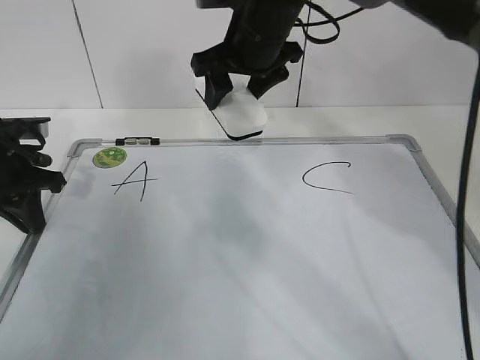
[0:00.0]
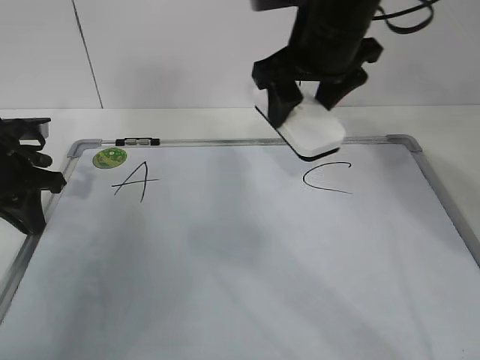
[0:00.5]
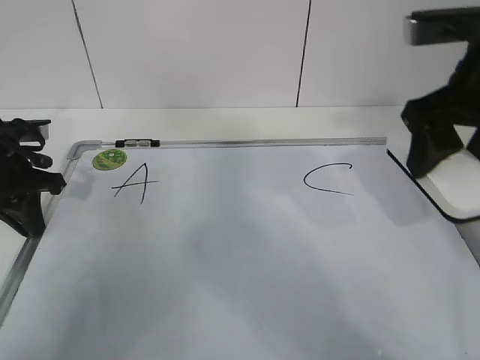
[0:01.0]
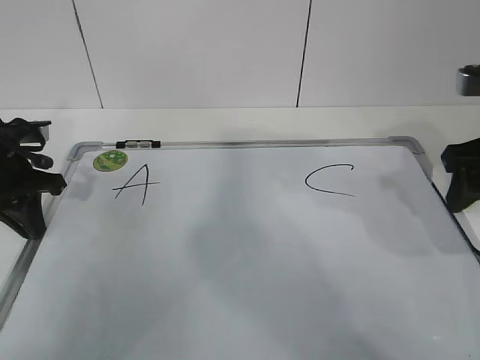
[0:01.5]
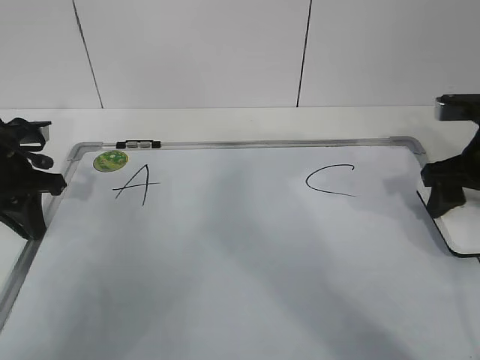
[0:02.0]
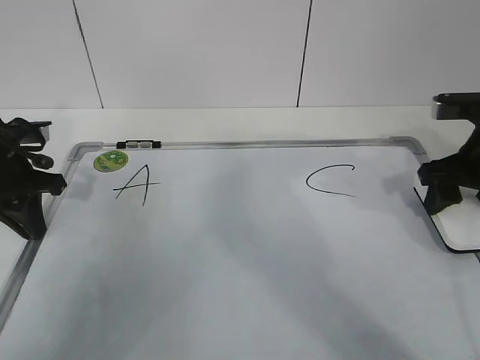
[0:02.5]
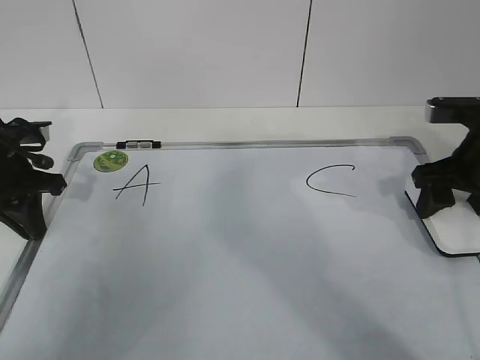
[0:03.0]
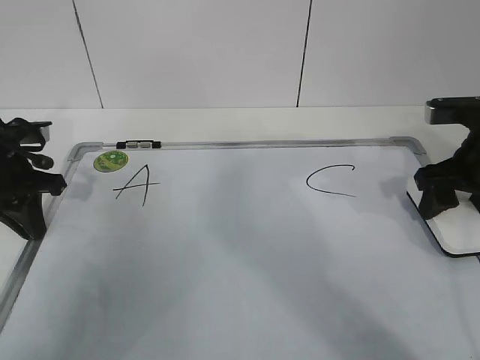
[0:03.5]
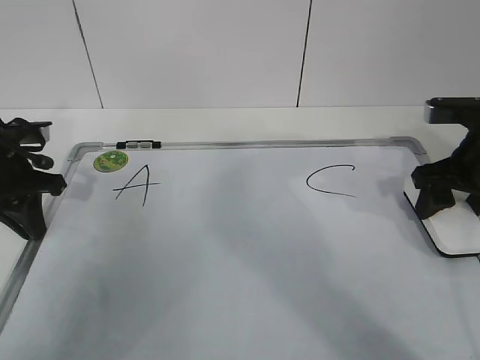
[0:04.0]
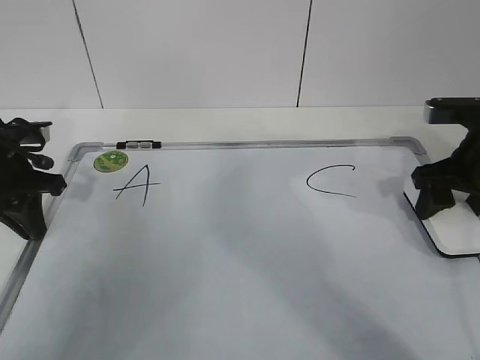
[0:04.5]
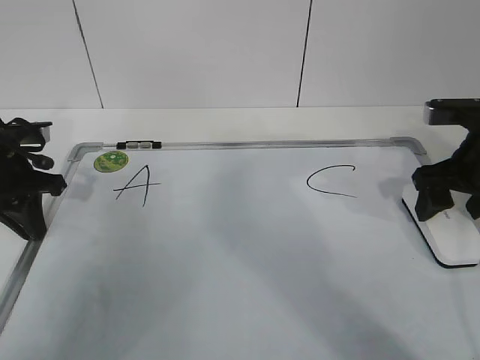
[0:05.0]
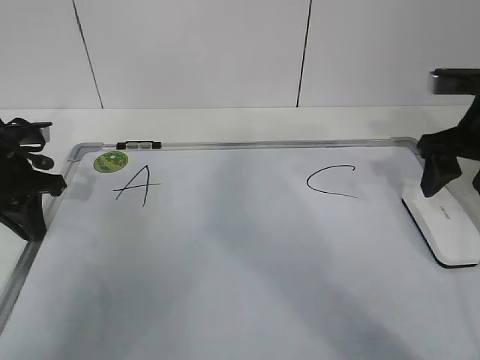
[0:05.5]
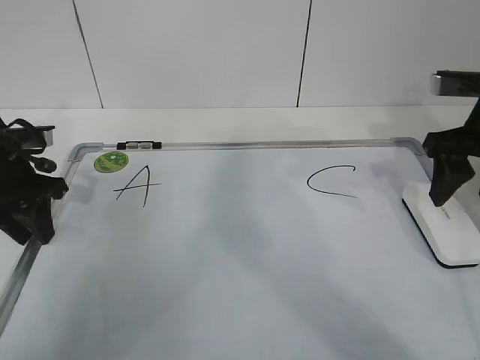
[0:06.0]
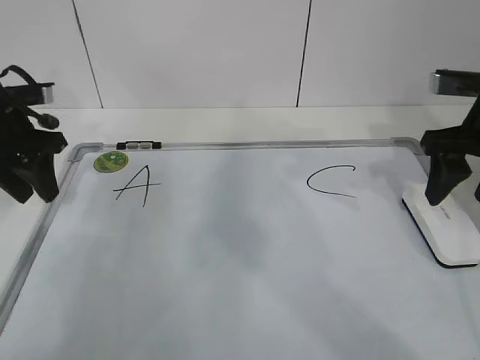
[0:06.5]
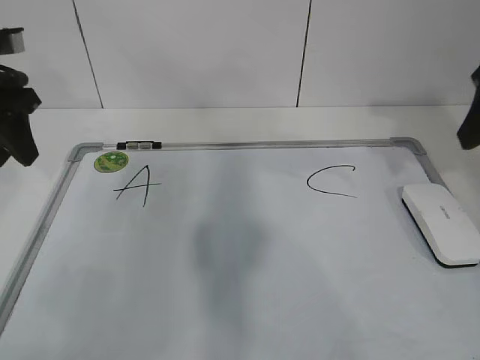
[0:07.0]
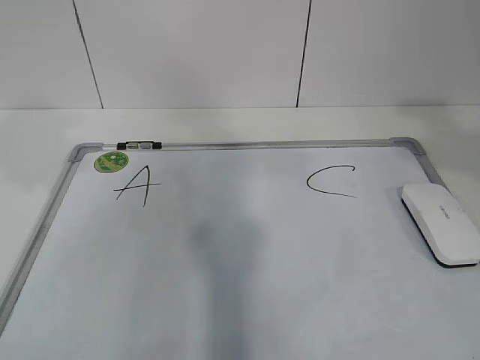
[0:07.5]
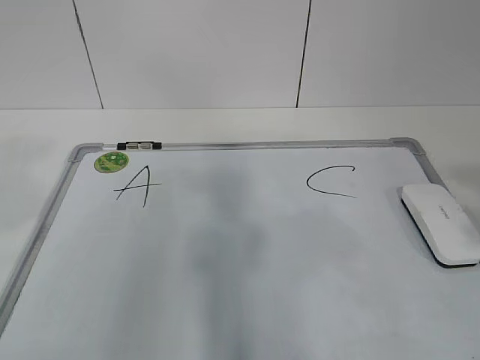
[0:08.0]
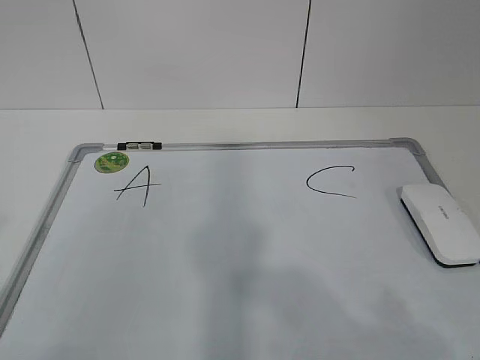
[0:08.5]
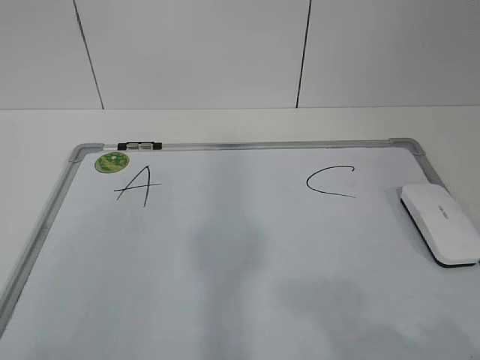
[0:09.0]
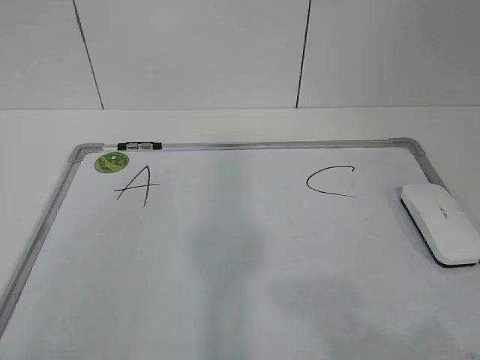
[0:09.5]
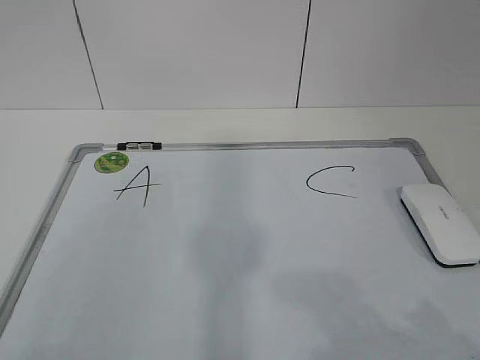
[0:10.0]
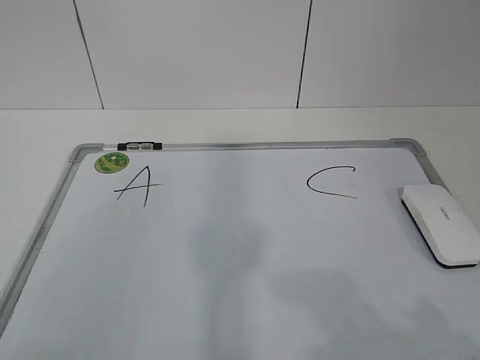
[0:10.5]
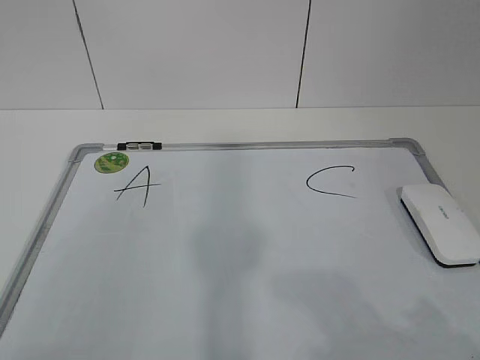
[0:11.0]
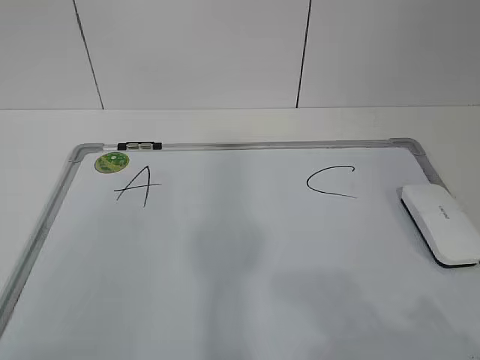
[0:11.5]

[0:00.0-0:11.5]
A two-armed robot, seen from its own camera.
Task of the whole recording: pick up the eraser on the blackboard and erase the letter "B".
0:00.0 to 0:02.0: The right gripper is displaced to the right and backward by approximately 25 cm.
0:02.0 to 0:04.0: Neither gripper changes place.
0:04.0 to 0:06.0: The right gripper opens, then closes once more. Meanwhile the left gripper opens.
0:06.0 to 0:07.5: Both grippers travel together upward and backward, about 25 cm.
0:07.5 to 0:09.5: The left gripper shifts roughly 25 cm backward; the right gripper travels backward and downward by approximately 25 cm.

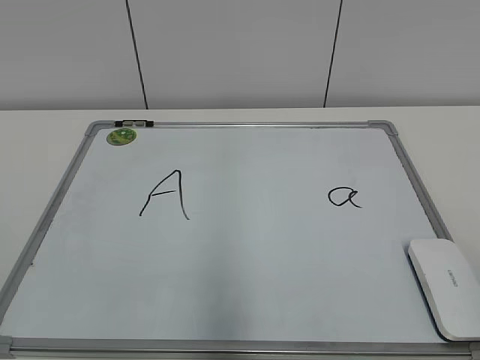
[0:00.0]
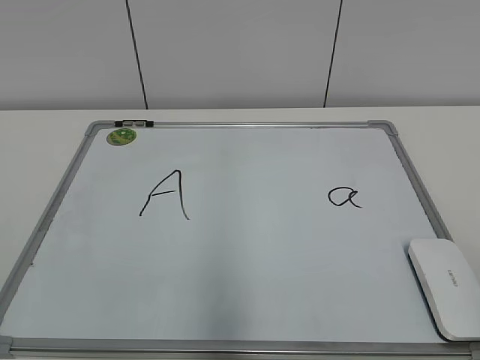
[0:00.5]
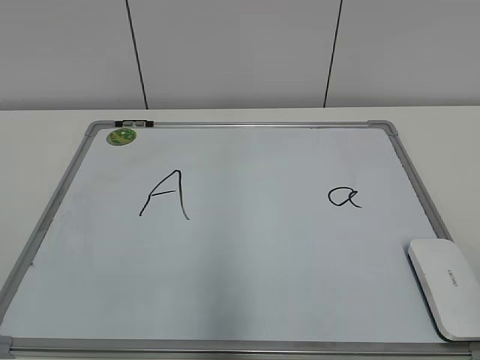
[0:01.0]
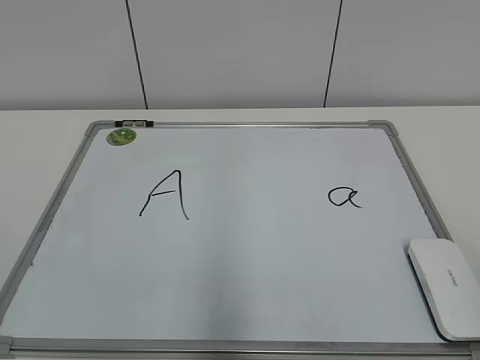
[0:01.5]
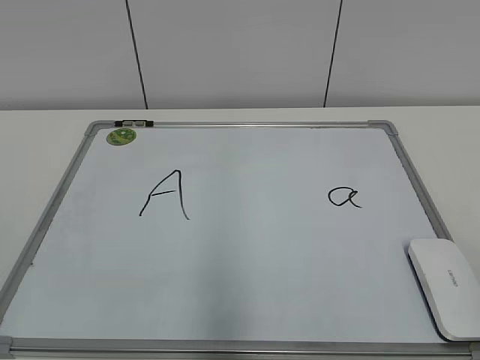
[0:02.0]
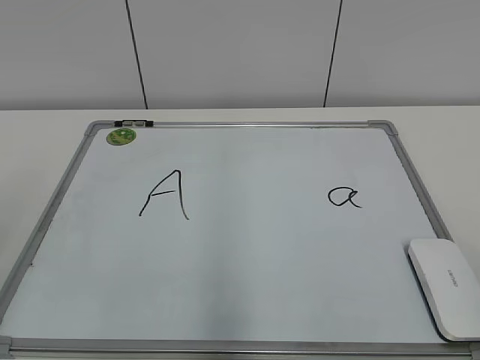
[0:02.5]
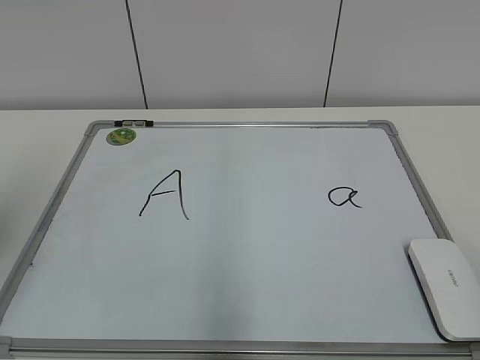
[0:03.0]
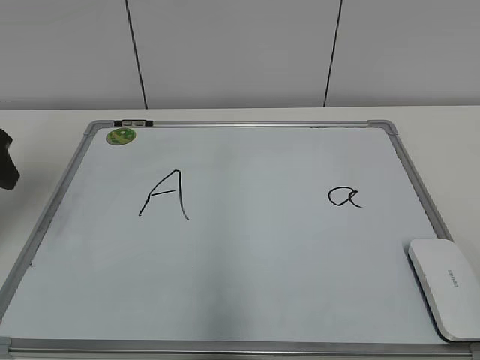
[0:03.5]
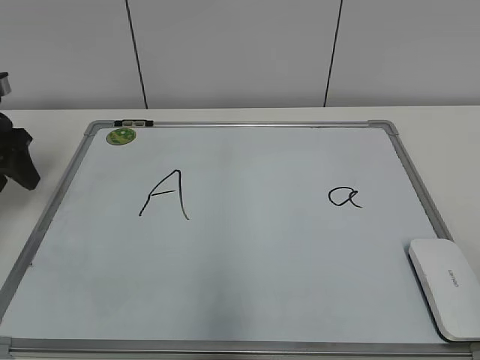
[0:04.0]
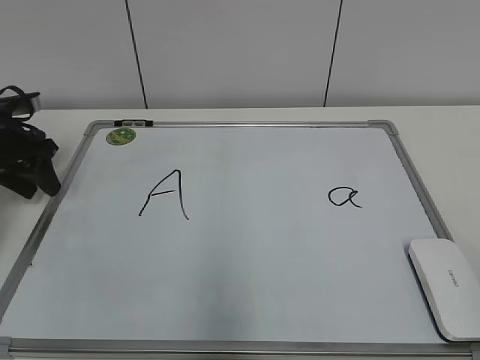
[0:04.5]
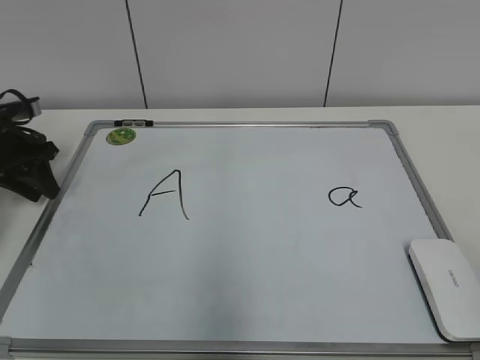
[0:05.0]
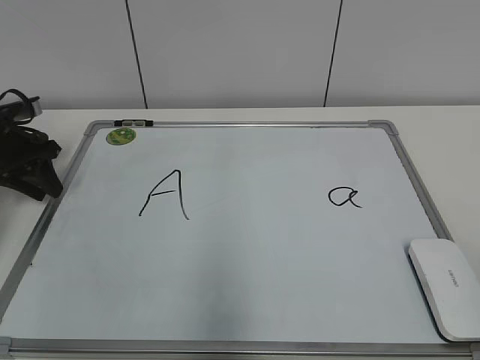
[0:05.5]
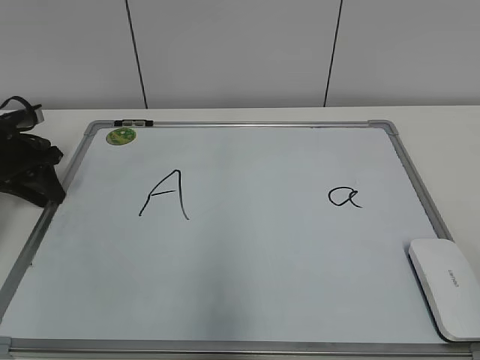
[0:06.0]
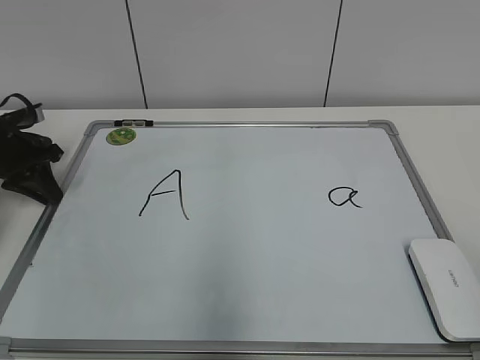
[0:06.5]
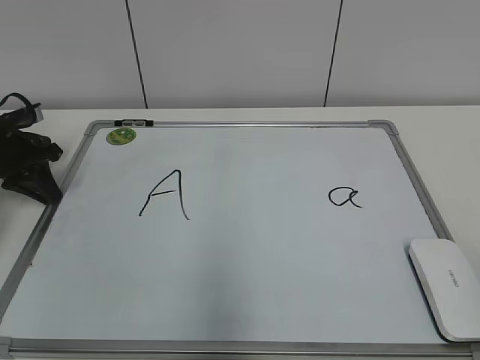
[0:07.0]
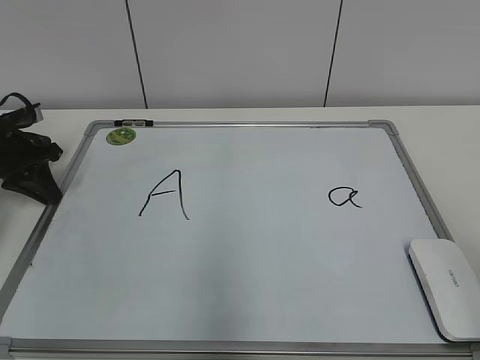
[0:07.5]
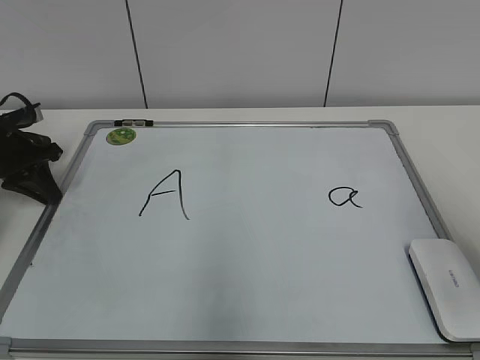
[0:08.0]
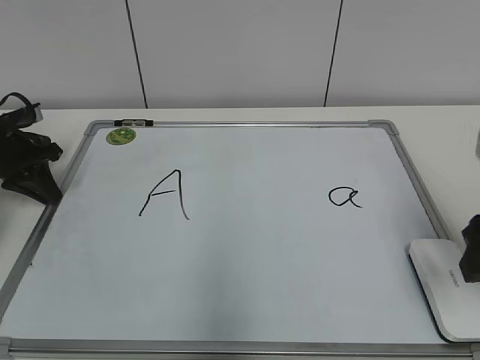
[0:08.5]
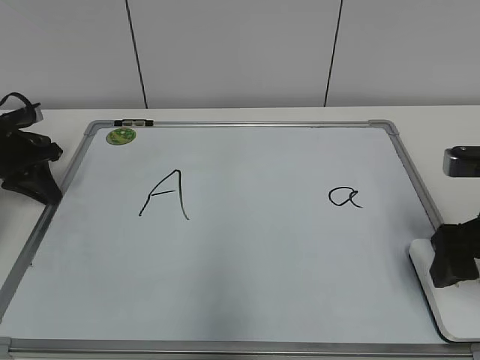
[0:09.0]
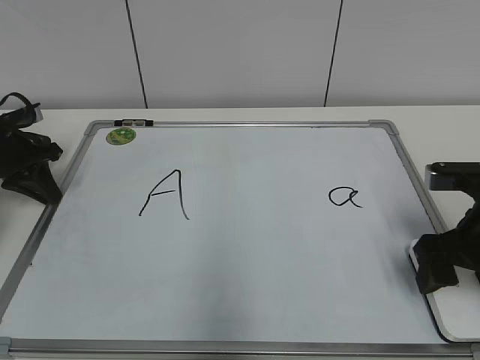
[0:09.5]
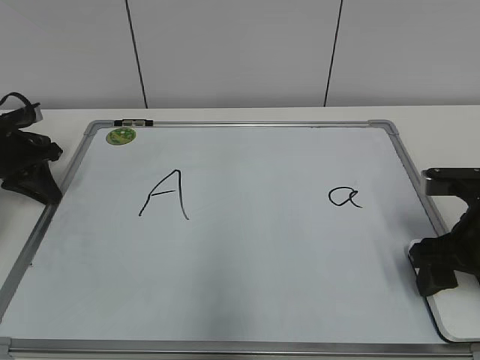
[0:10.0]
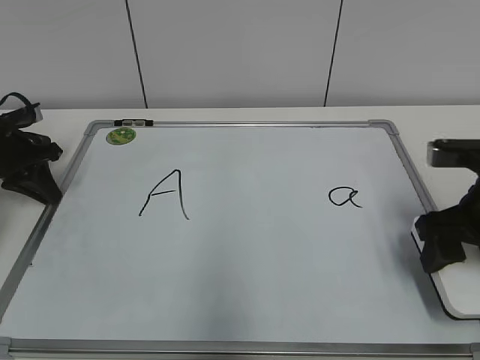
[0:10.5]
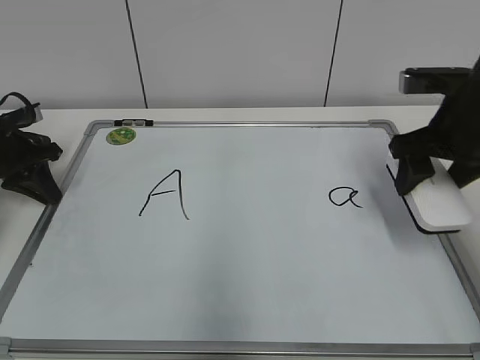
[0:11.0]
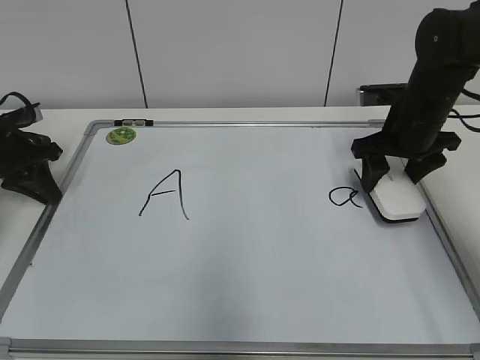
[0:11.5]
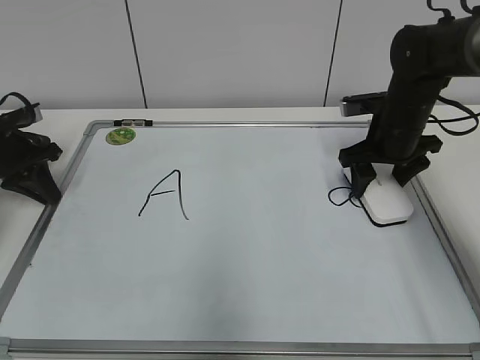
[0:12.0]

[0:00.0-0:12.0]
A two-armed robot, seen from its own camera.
Task of the whole recording: pick up the eraser on the blackboard and erase the letter "a".
Step, 0:00.0 to 0:06.0: Hold the drawing board steady with your left hand.
Step, 0:06.5 to 0:10.0: Grab the eraser with your right hand.
0:02.0 to 0:04.0: The left gripper shifts roughly 40 cm forward.
0:04.0 to 0:06.0: The left gripper travels downward and forward by approximately 10 cm, and closes up.
0:06.0 to 0:08.0: The left gripper closes. The right gripper travels forward by some 15 cm.
0:08.0 to 0:10.0: The right gripper goes approximately 15 cm downward and forward, and closes its fingers.
0:10.0 to 0:12.0: The right gripper is displaced forward by approximately 15 cm.

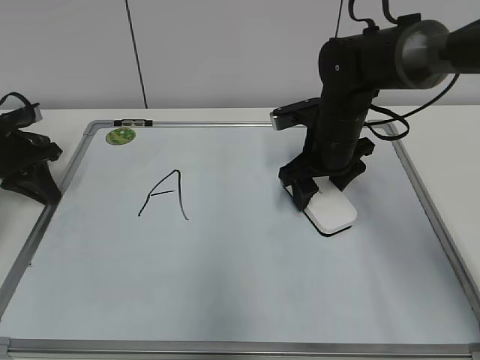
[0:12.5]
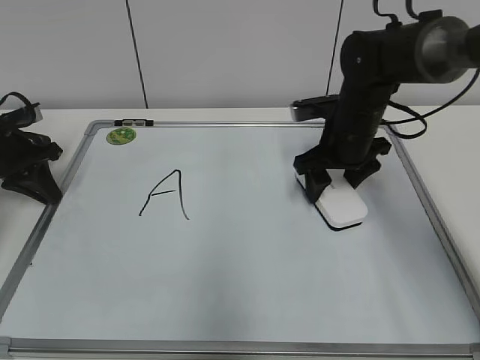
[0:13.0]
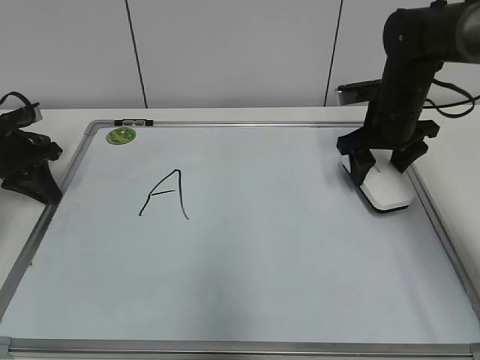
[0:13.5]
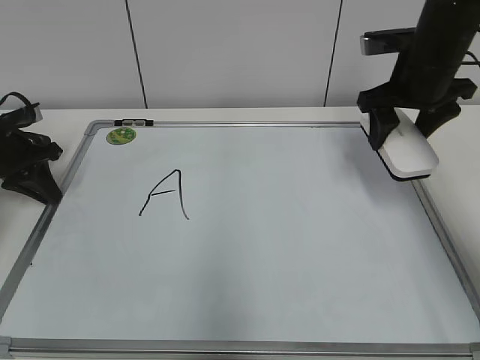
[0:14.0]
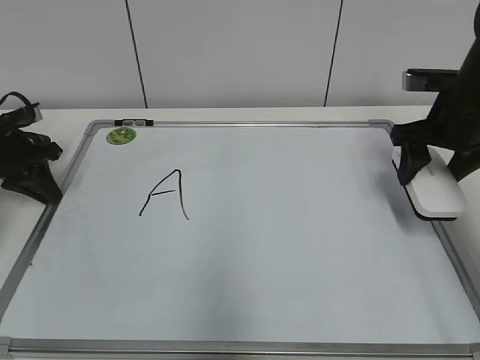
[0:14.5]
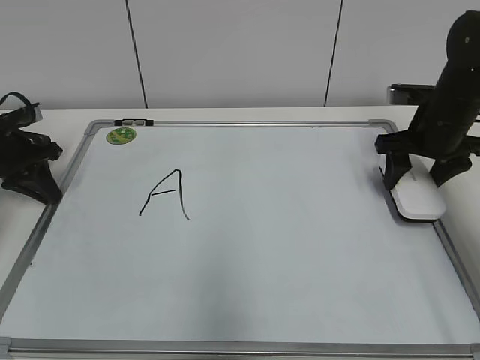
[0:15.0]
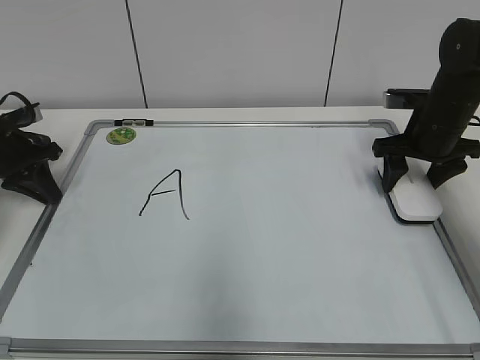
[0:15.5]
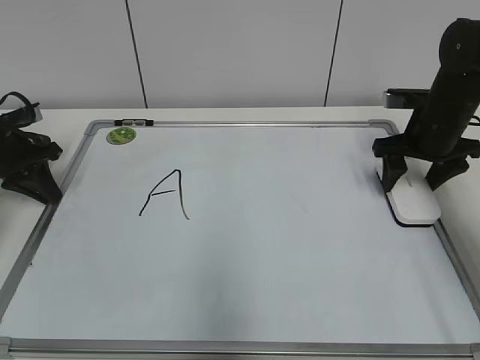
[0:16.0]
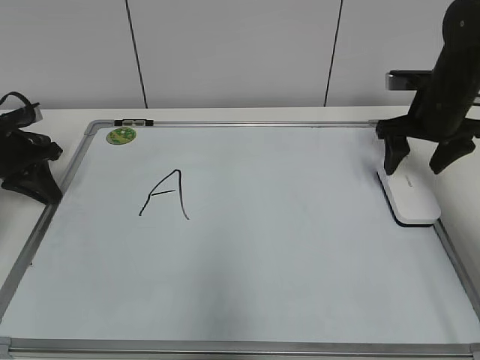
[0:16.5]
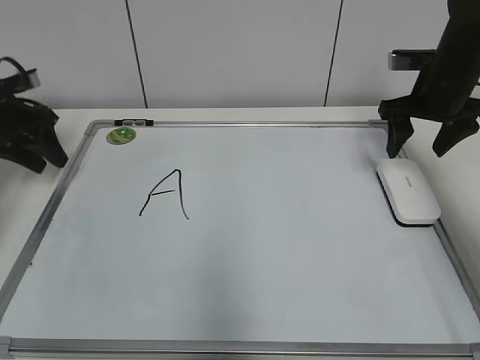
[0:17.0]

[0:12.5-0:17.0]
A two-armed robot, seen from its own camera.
Task of the whole recording: pick up the eraser on the blackboard and erase the letter "a".
Step, 0:13.5 to 0:16.0: Put down the eraser with your right hand.
0:12.5 to 0:14.5: The right gripper heads to the right and upward, covering roughly 15 cm.
0:14.5 to 0:17.0: The right gripper goes about 5 cm forward, and opens. Meanwhile the left gripper ends up some 5 cm from where it was, and opens.
